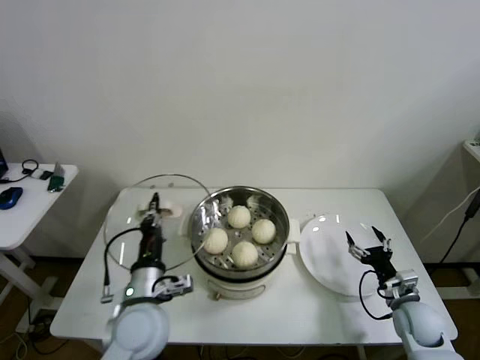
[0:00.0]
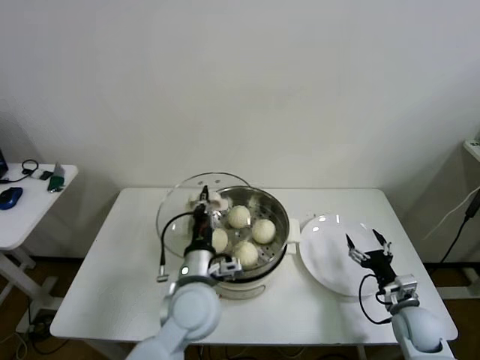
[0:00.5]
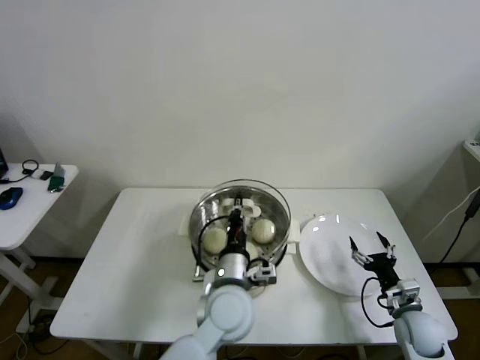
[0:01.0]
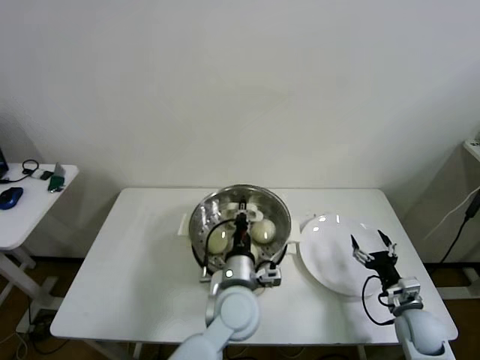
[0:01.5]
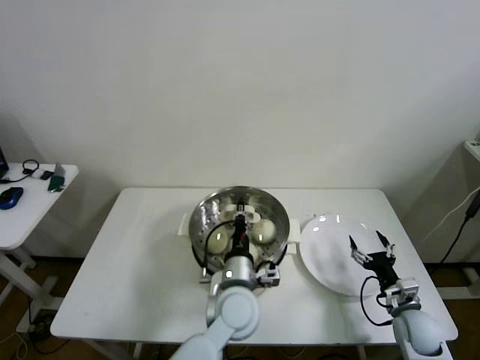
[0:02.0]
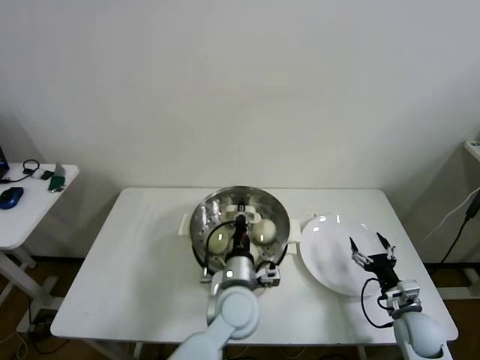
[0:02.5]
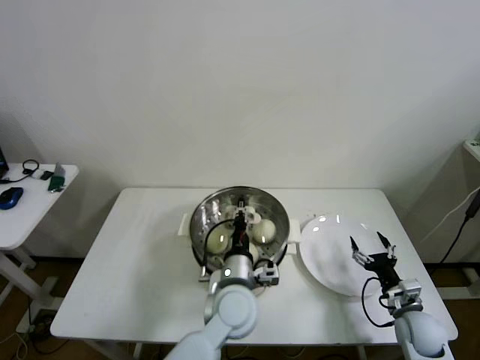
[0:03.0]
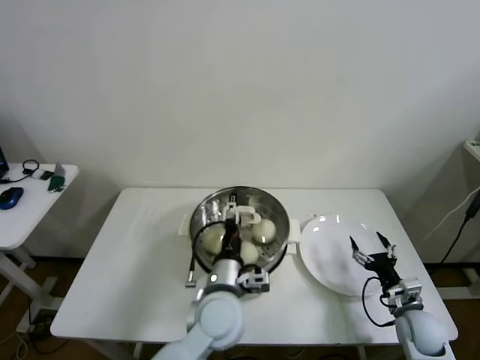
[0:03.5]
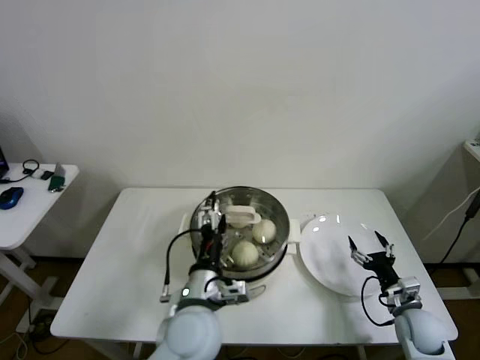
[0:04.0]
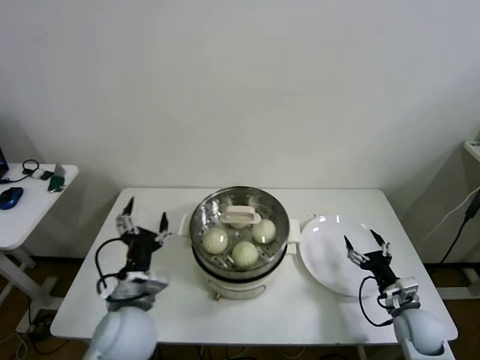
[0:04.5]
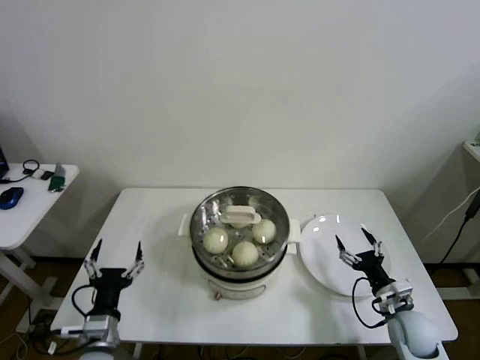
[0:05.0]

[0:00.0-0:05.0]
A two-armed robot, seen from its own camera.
Step, 0.0 to 3.5 s: Place the pot lid on the steamer with left gripper.
0.0 to 2.5 s: The left gripper shifts some 20 cm to the right.
2.5 to 5.0 s: The left gripper goes roughly 30 cm to the left and backward, and opens its fingers.

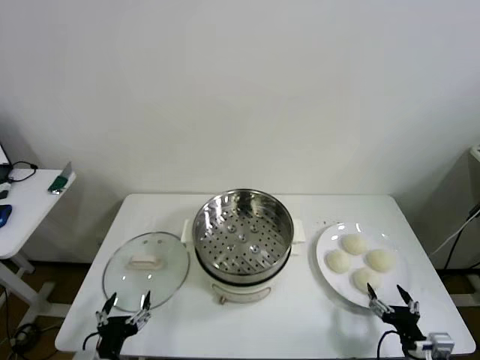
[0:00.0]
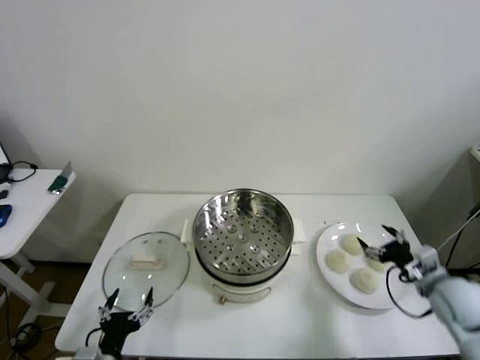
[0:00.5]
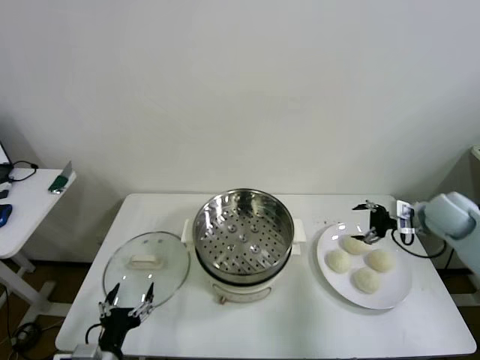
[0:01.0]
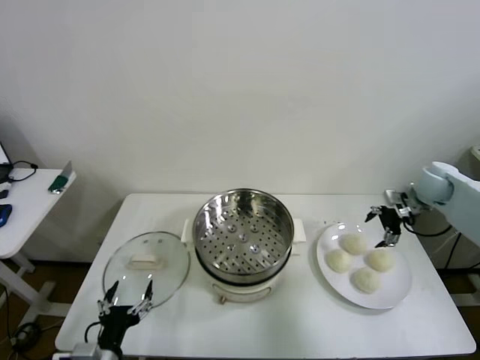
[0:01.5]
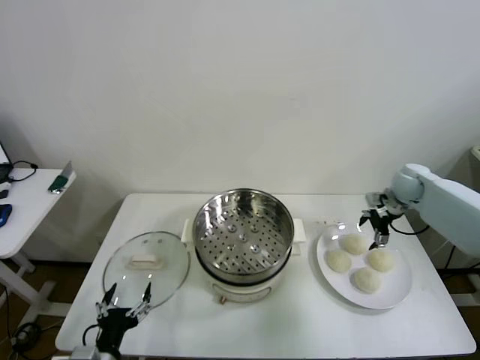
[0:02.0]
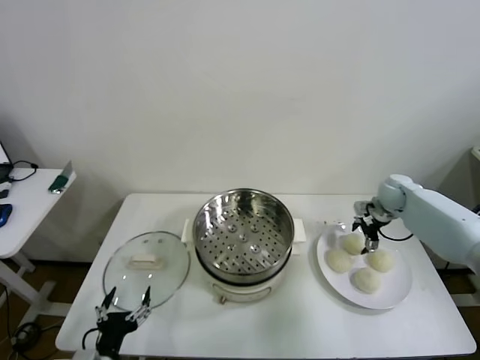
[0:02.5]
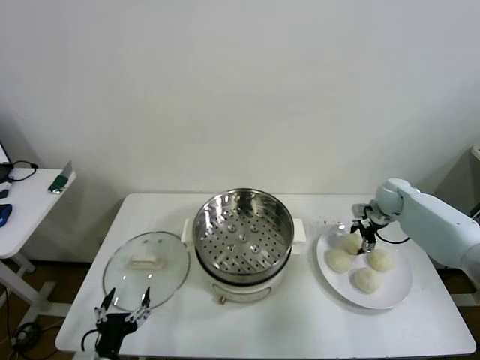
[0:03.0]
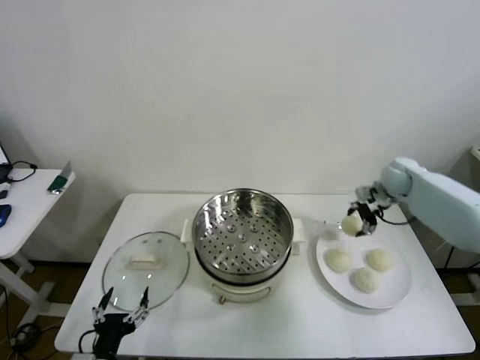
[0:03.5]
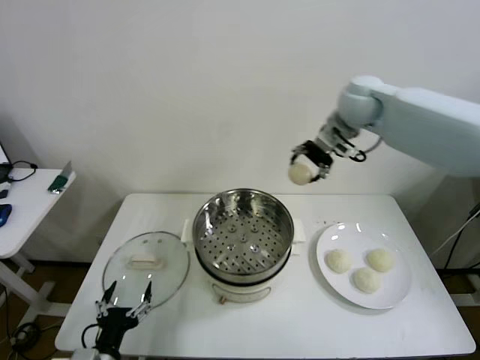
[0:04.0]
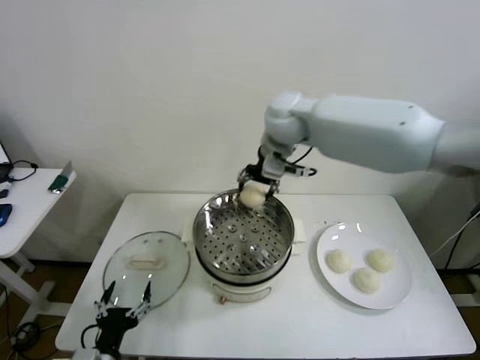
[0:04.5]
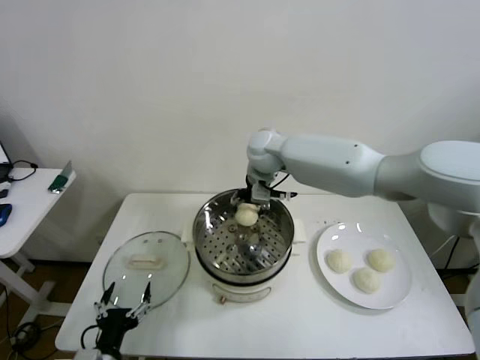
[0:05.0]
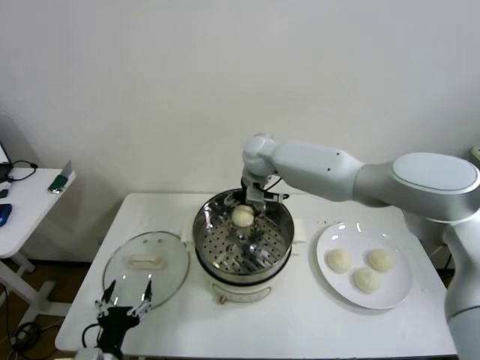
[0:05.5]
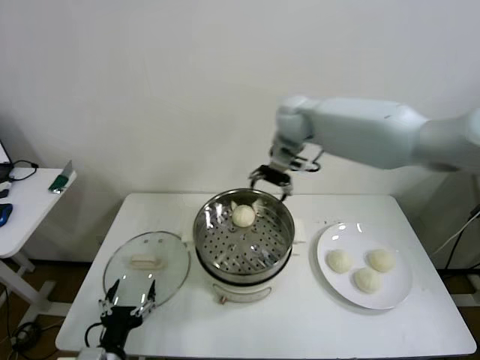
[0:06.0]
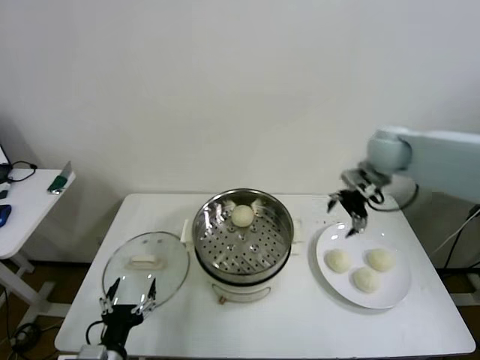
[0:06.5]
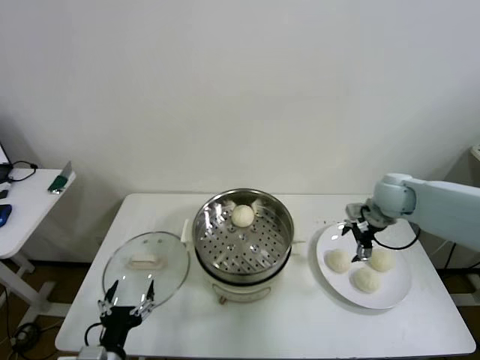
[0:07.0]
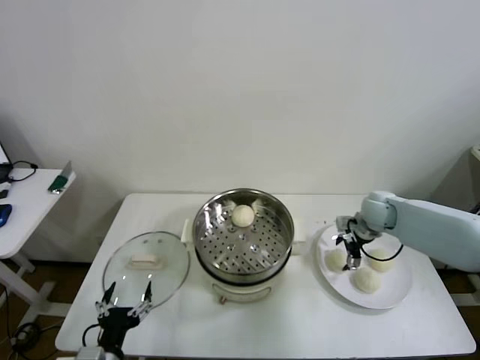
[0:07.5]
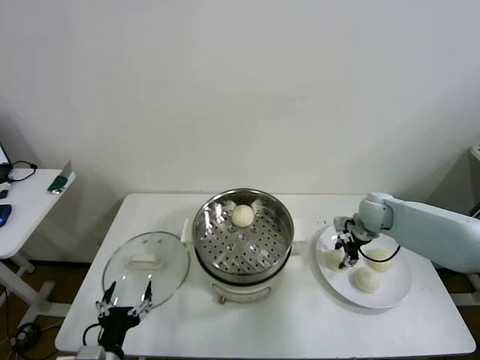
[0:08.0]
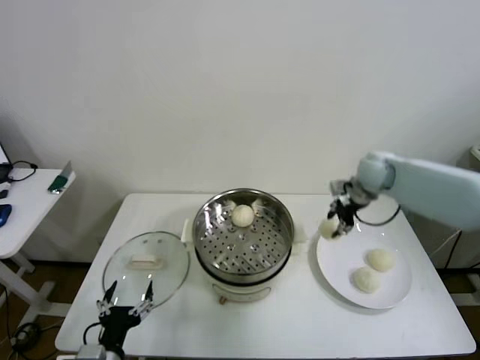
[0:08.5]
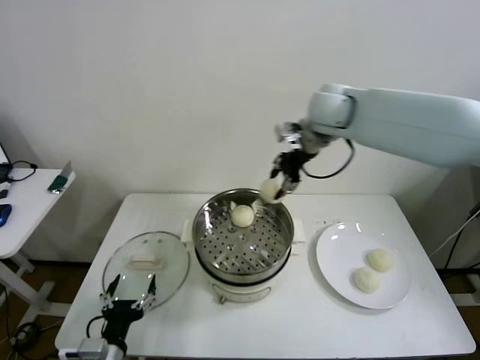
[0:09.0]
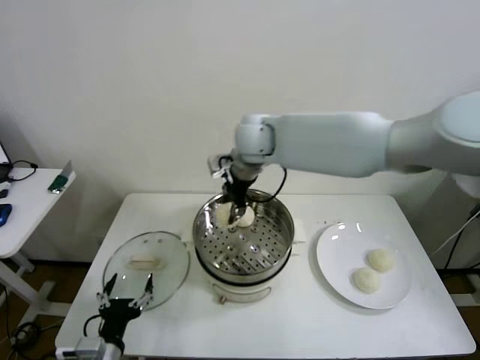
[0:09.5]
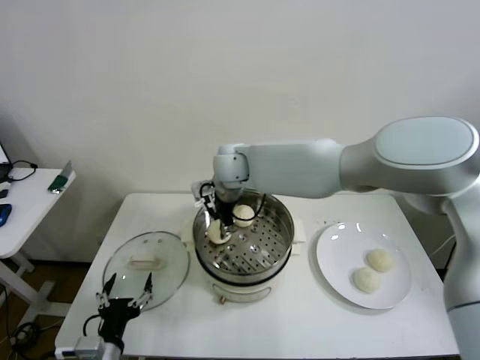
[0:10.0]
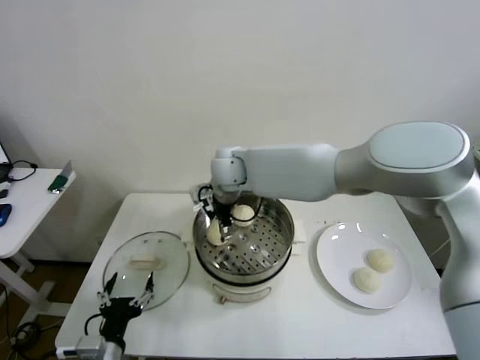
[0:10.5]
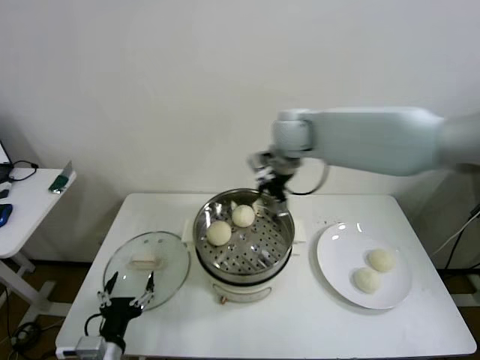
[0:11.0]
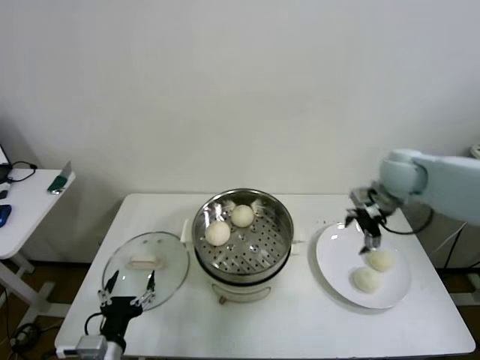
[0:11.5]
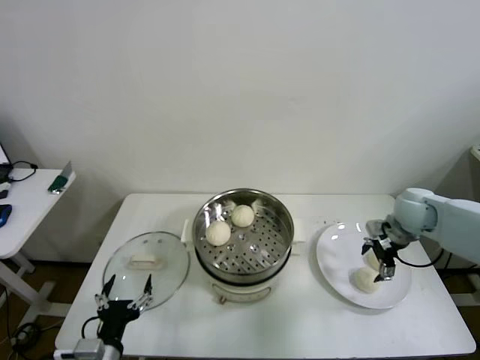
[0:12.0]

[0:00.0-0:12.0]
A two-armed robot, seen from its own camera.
Step, 0.0 to 2.5 s: Grasp the baozi in the plate with right gripper.
Step, 3.0 to 5.5 s: Place the baozi on the steamer with right gripper.
Step, 6.0 to 7.5 s: Grasp the baozi in the plate with right gripper.
Step, 8.0 to 10.5 s: Place the baozi on the steamer with right gripper.
2.0 to 4.0 s: The right gripper is displaced upward and to the left by some 35 cm, and closes.
4.0 to 6.0 s: The right gripper shifts some 5 cm downward, and opens.
6.0 to 8.0 s: The right gripper travels downward and to the right by roughly 30 cm, and closes.
8.0 to 10.0 s: The right gripper heads to the left, covering some 35 cm.
10.0 to 12.0 s: The right gripper travels to the right by approximately 40 cm, and opens up.

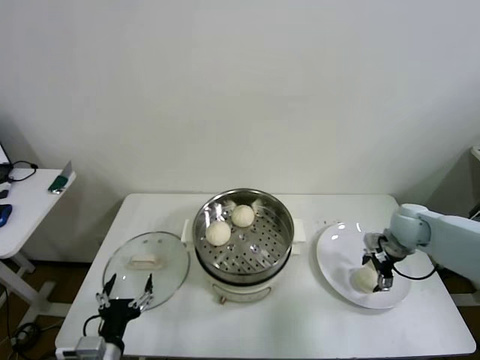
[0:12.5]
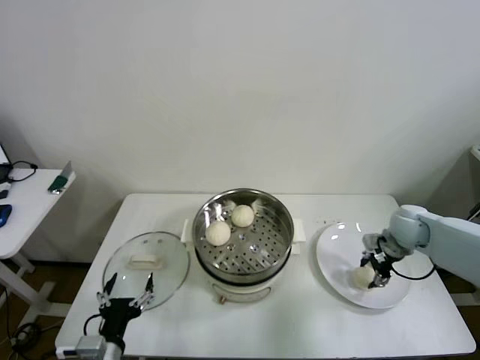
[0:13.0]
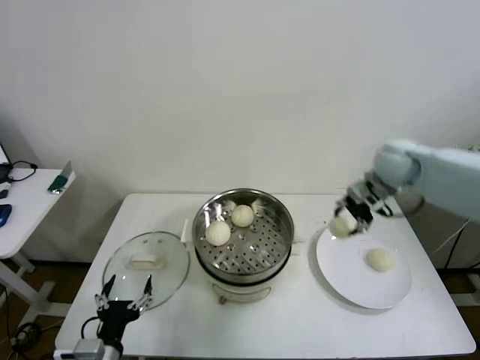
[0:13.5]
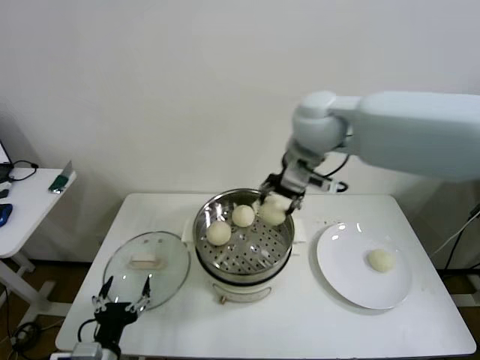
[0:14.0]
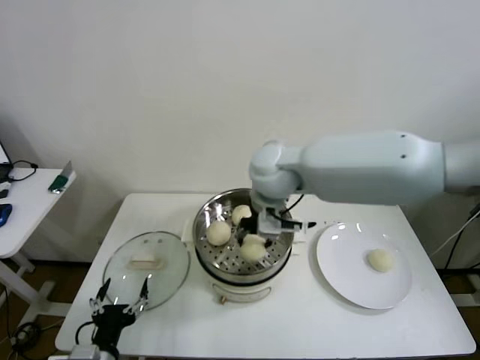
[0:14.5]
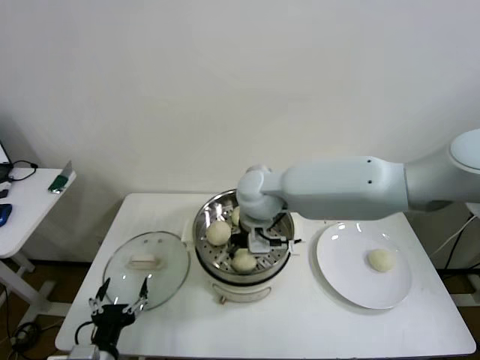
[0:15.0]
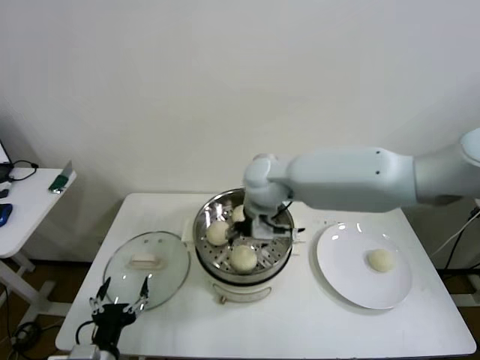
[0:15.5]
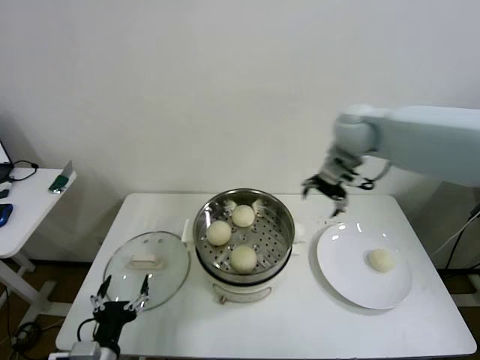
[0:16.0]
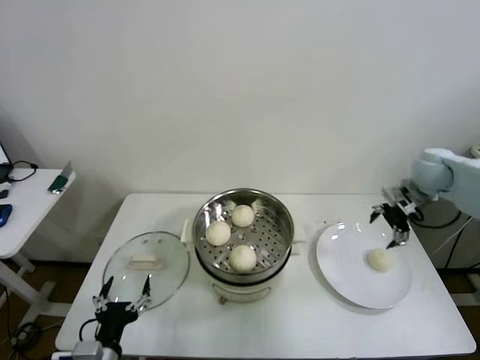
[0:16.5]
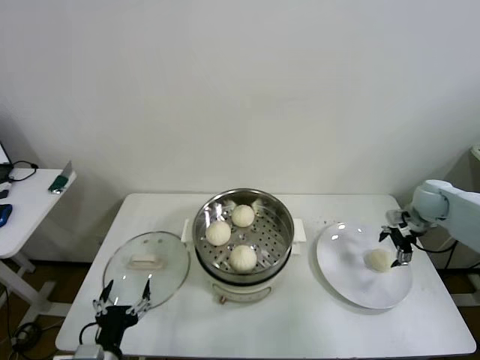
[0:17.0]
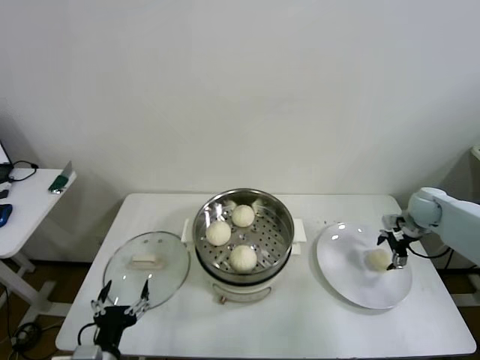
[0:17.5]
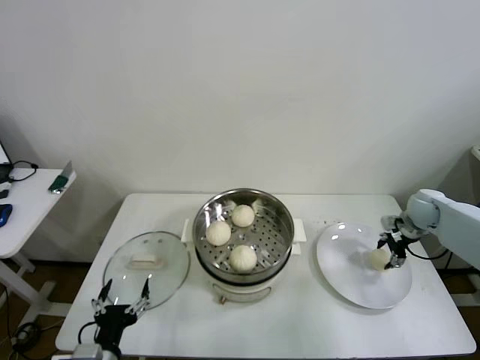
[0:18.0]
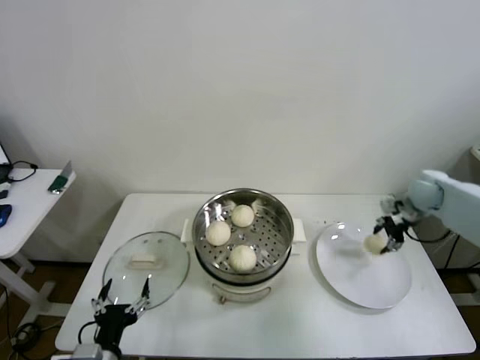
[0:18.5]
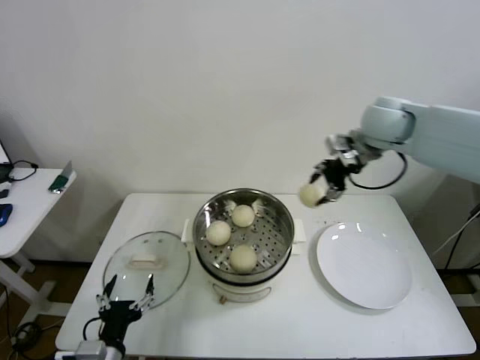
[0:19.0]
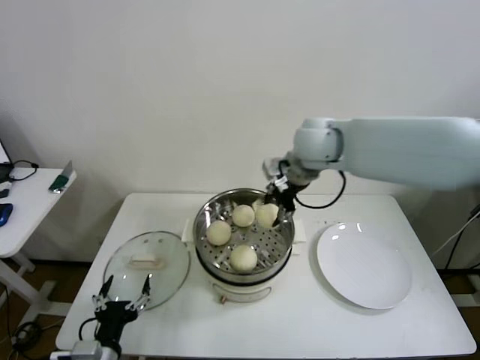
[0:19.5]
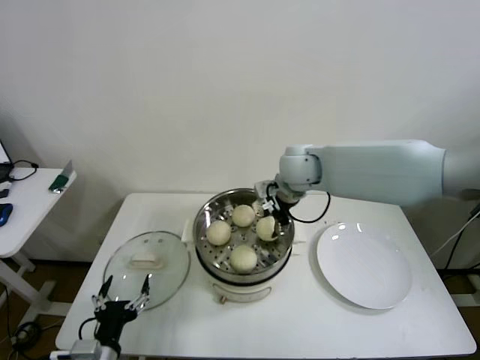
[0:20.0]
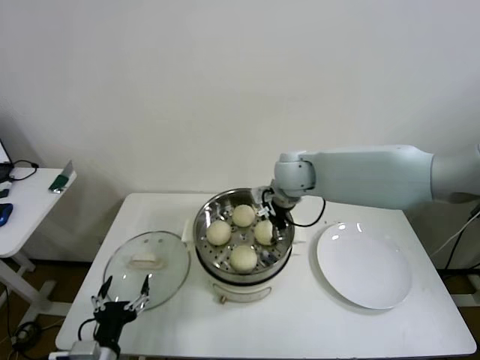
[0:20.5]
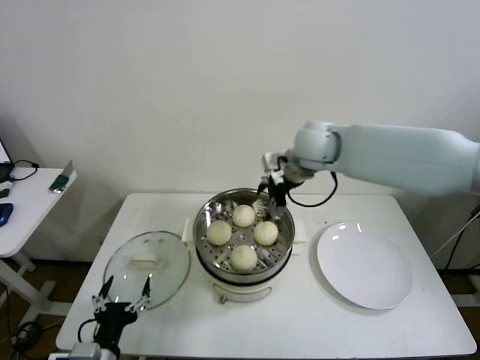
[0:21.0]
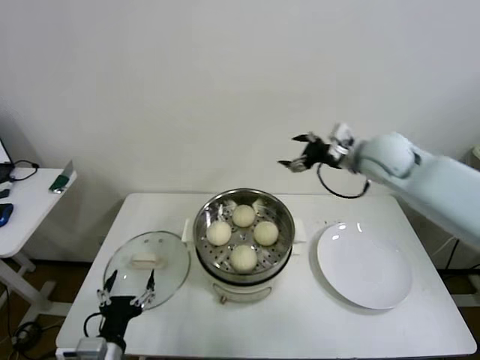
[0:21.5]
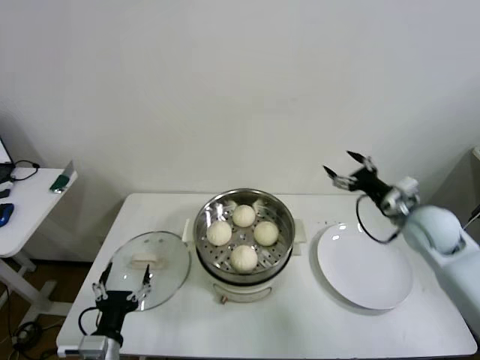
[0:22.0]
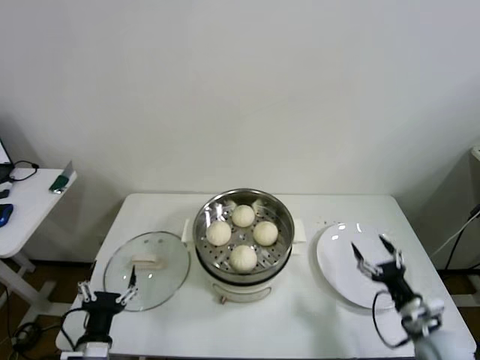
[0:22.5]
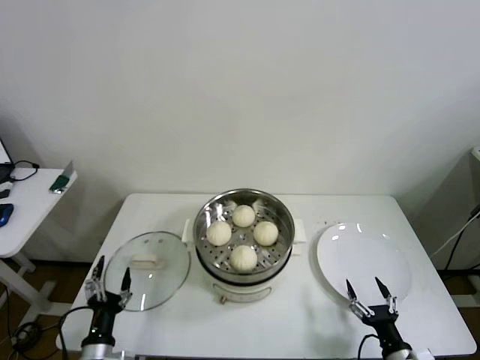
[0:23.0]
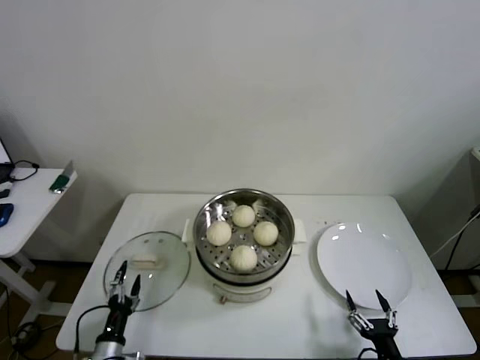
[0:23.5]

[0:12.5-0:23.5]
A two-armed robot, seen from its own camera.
Step, 13.0 to 15.0 s: Place the baozi on the steamer with right gripper.
Step, 15.5 to 18.0 s: Grasp the baozi in the plate with right gripper.
Step, 18.5 to 20.5 s: Place the baozi on the steamer with right gripper.
12.5 to 14.5 s: The right gripper shifts some 40 cm to the left and upward, and closes.
14.5 to 16.0 s: The right gripper travels to the right and forward by some 20 cm, and opens.
16.0 to 18.0 s: The right gripper goes about 30 cm to the right and downward, and closes its fingers.
18.0 to 20.0 s: The right gripper goes roughly 40 cm to the left and upward.
20.0 to 21.5 s: The right gripper shifts about 15 cm to the right, and opens.
21.5 to 23.5 s: The left gripper moves downward and to the left, approximately 15 cm. The right gripper moves backward and downward, roughly 50 cm.
